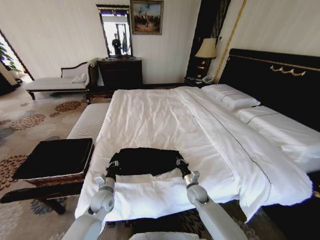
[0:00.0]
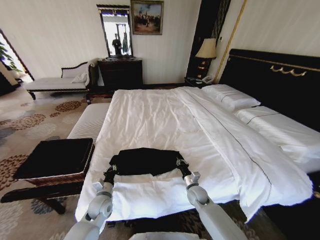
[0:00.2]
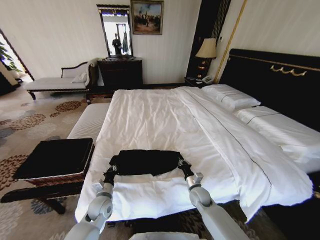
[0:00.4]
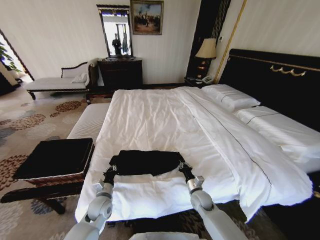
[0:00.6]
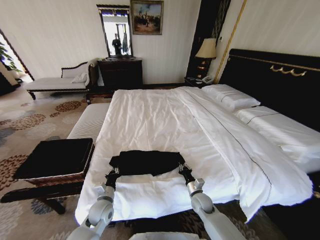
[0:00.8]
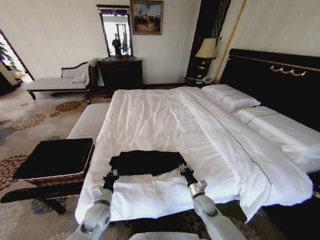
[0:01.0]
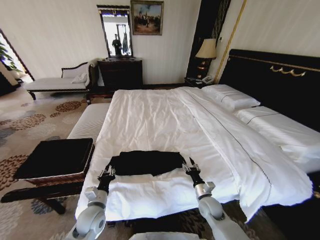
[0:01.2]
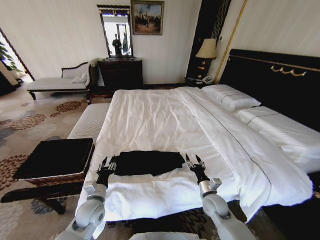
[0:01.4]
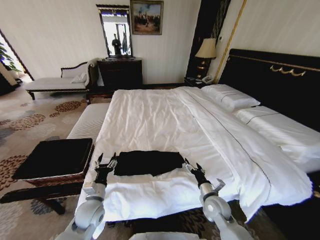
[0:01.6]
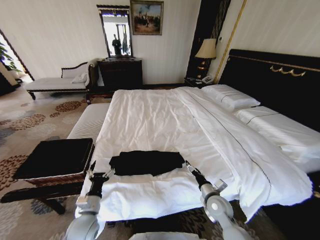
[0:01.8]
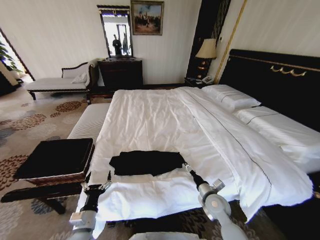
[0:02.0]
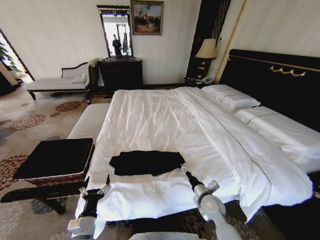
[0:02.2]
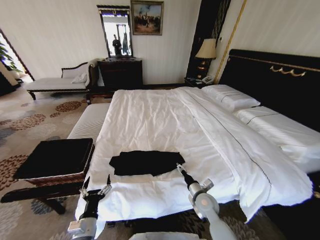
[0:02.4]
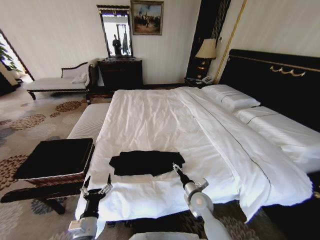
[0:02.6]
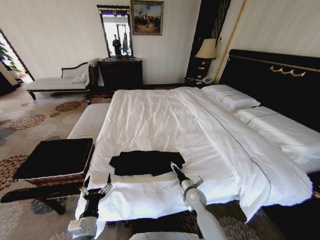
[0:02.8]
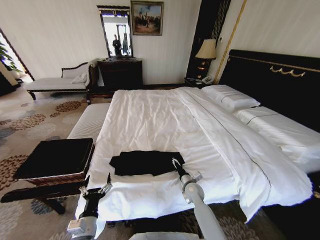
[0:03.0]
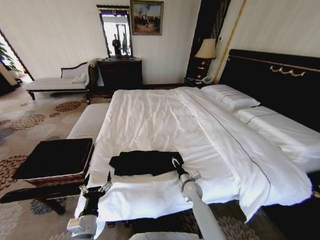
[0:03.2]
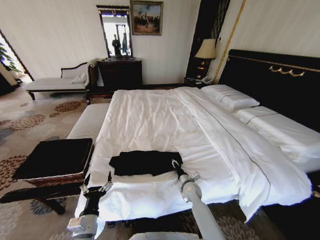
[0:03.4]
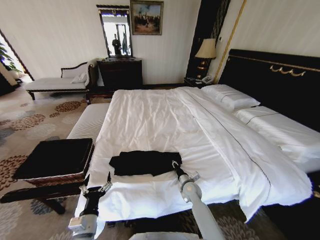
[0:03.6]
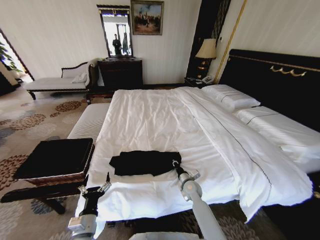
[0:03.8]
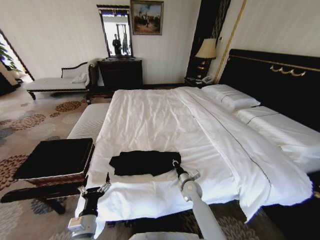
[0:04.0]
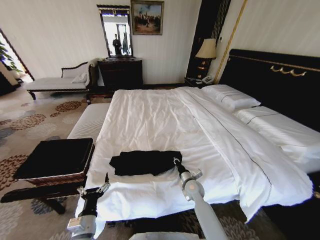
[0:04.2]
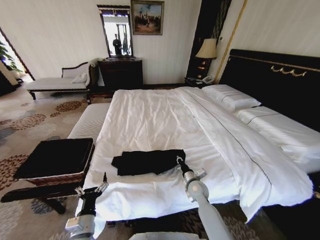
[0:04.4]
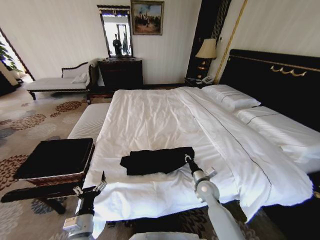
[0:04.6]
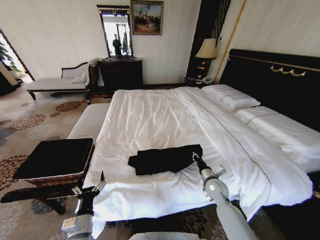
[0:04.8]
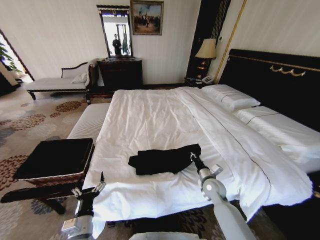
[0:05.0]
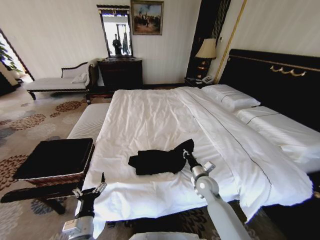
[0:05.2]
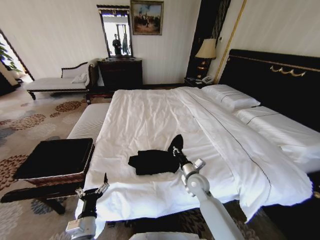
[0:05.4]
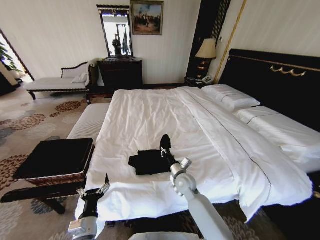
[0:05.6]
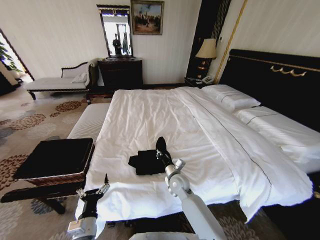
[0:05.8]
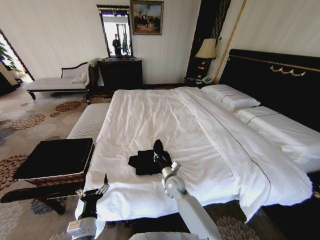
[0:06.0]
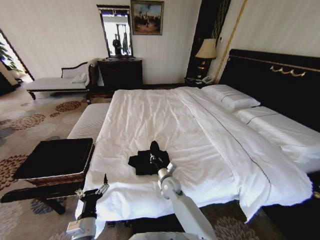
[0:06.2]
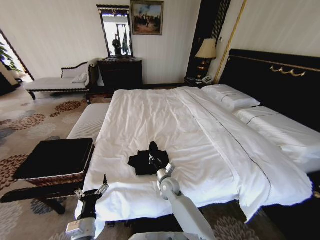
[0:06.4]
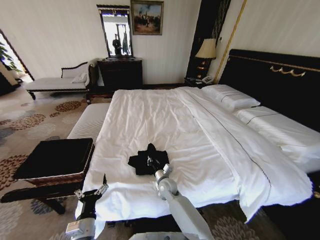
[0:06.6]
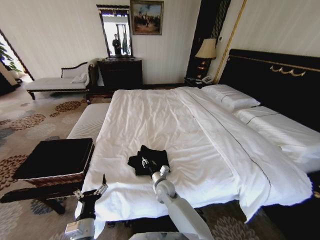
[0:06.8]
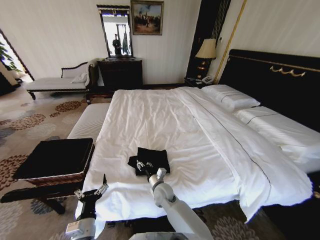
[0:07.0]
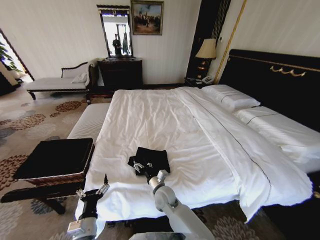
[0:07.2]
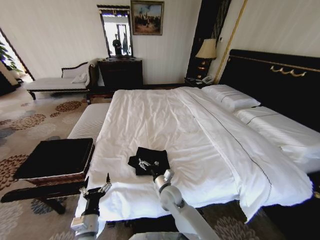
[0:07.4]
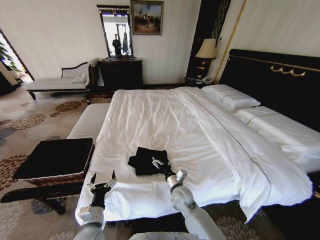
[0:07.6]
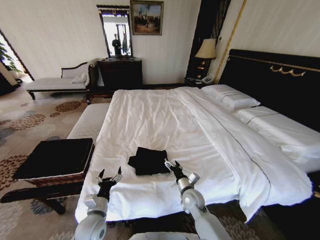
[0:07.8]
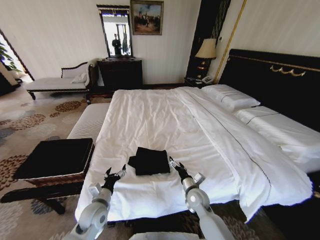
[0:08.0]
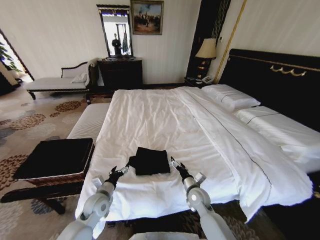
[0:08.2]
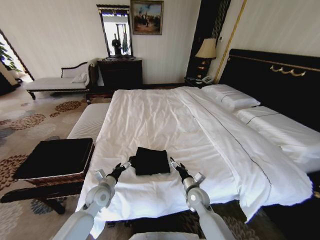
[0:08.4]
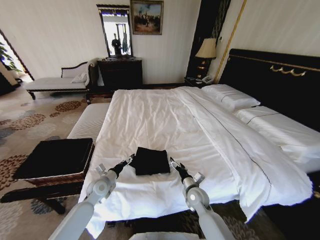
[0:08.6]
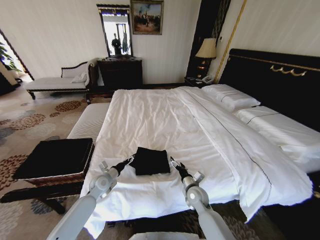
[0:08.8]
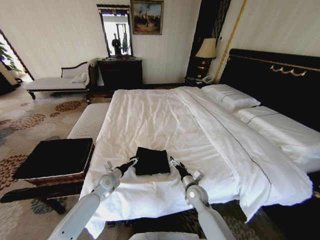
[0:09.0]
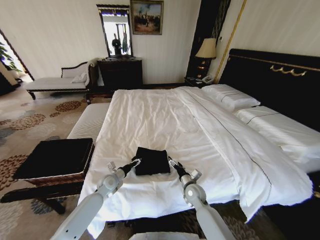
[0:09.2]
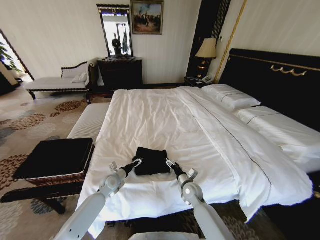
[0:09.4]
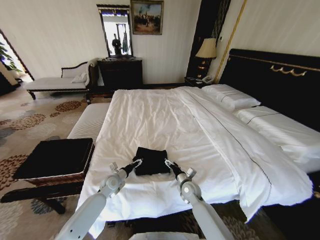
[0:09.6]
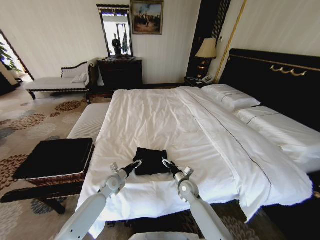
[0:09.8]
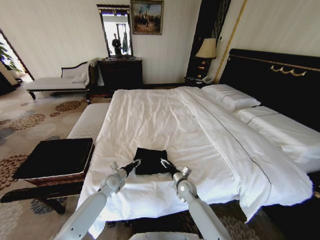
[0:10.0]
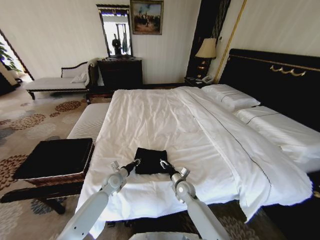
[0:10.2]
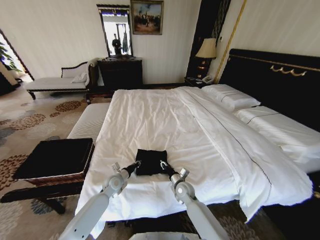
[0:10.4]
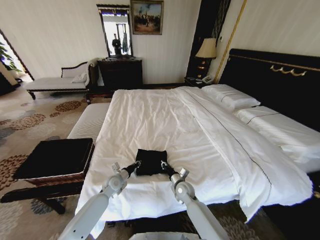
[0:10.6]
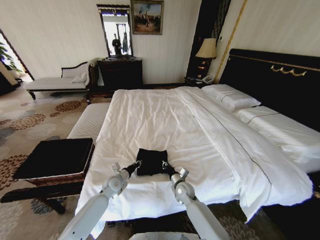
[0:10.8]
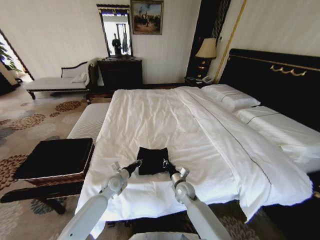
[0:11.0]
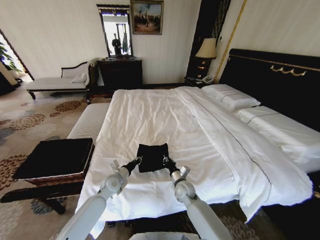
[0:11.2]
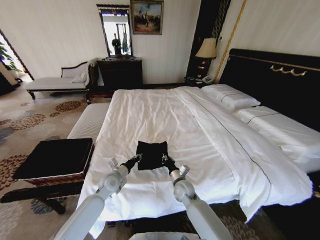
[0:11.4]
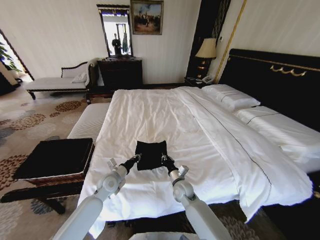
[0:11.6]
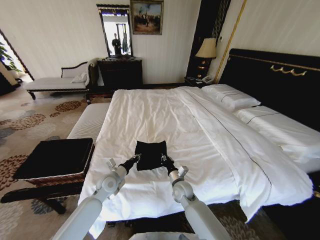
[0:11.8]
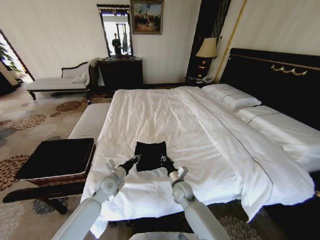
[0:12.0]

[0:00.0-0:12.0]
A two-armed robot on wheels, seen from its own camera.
Task of the whole recording: Fold the clothes on the bed and place them into the basket.
0:00.0 to 0:01.6: The right gripper travels backward and upward by approximately 10 cm, and opens its fingers. Meanwhile the left gripper travels backward by roughly 5 cm, and opens up.
0:01.6 to 0:03.0: The right gripper moves forward, to the left and downward, roughly 10 cm. Meanwhile the left gripper shifts roughly 10 cm backward.
0:03.0 to 0:04.4: The right gripper closes up.
0:04.4 to 0:06.0: The right gripper heads to the left, covering some 10 cm.
0:06.0 to 0:07.6: The right gripper heads backward, covering some 5 cm, moves approximately 5 cm to the left and comes back, and opens.
0:07.6 to 0:09.0: The left gripper travels forward by some 20 cm. The right gripper heads to the right, covering roughly 10 cm.
0:09.0 to 0:10.4: The right gripper shifts by roughly 5 cm, and closes its fingers. The left gripper closes its fingers.
0:10.4 to 0:12.0: The right gripper closes. The left gripper travels upward by approximately 10 cm.

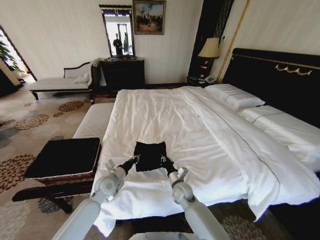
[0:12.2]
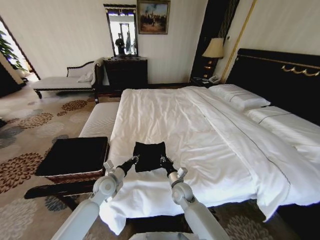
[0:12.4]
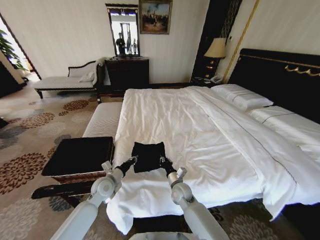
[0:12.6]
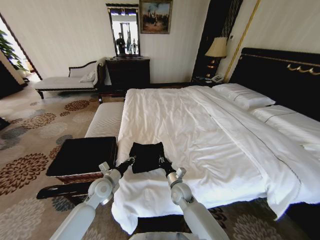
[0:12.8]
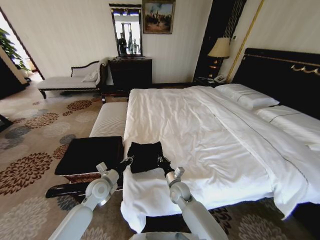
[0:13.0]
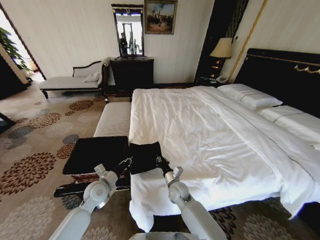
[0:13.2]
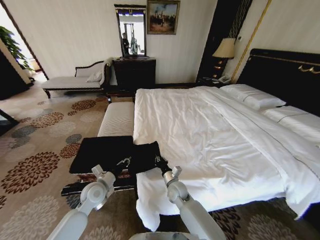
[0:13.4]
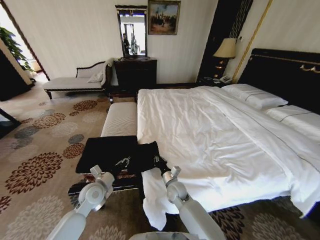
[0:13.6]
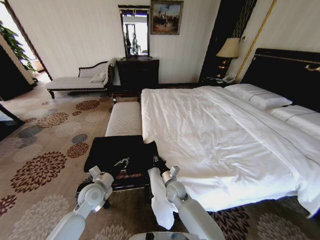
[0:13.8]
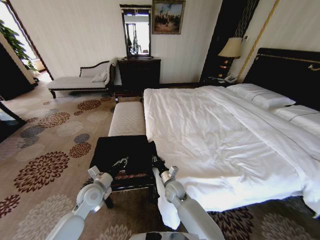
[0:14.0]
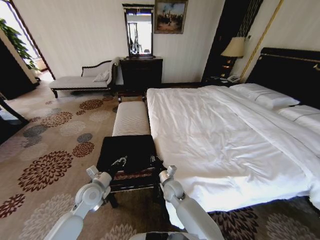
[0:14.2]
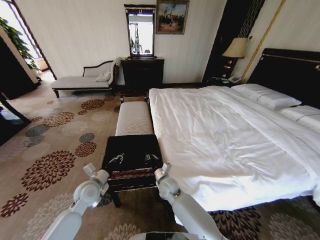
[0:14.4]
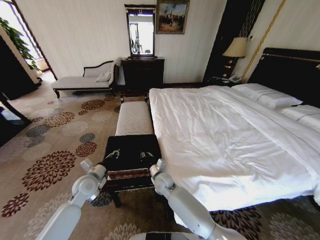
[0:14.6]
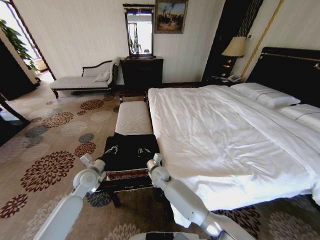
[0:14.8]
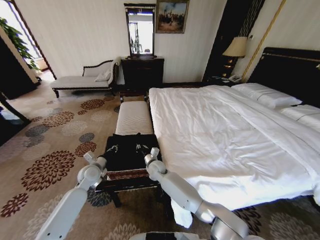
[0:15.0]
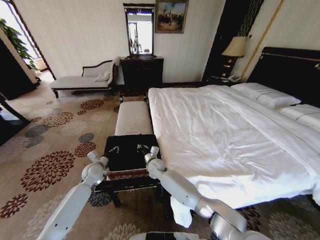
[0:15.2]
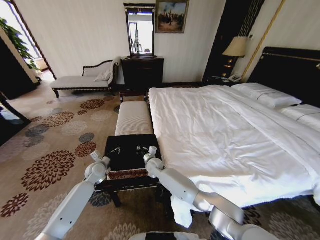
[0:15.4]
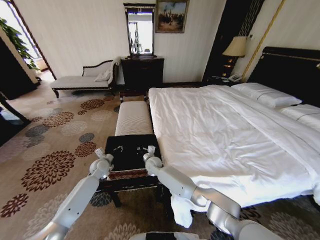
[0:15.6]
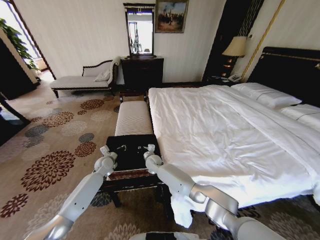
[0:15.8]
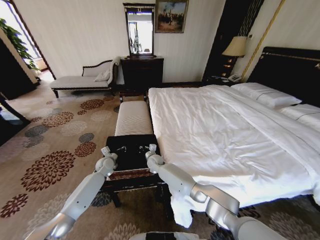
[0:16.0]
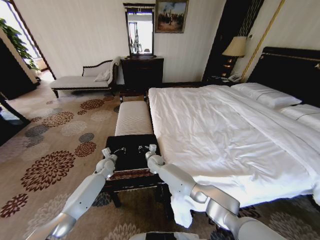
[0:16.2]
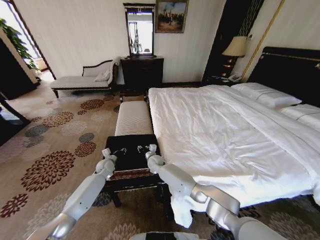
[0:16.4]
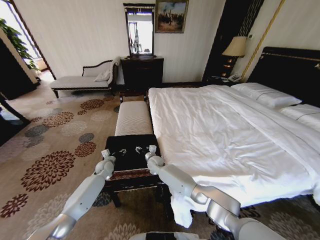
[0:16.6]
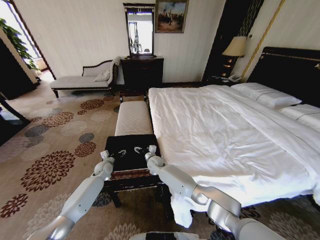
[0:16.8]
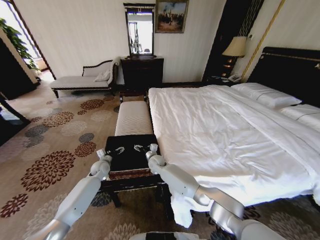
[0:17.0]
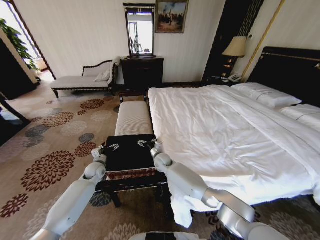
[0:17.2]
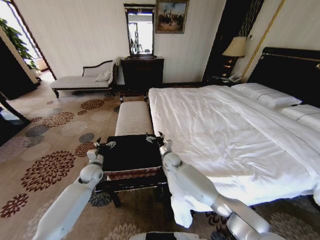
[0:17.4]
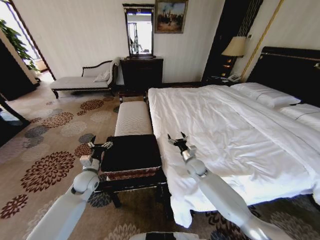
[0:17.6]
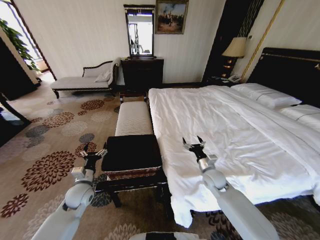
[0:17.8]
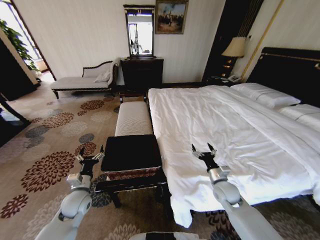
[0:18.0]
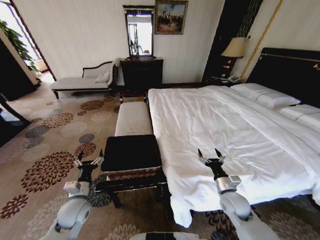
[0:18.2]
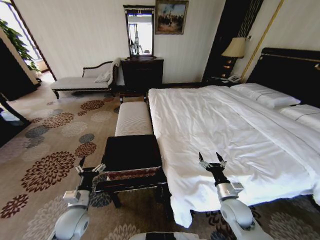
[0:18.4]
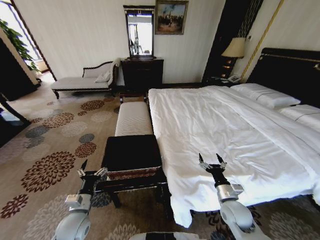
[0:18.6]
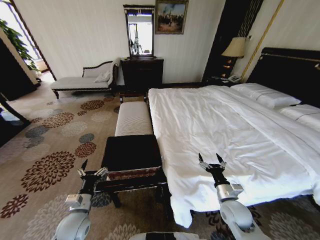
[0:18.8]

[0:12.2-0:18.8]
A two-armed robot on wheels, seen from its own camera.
Task of the whole recording: Fold the clothes on the bed and place them into the basket.
0:12.2 to 0:13.8: The left gripper moves roughly 5 cm.
0:13.8 to 0:15.4: The right gripper heads forward and to the left, covering some 15 cm. The left gripper shifts roughly 10 cm forward.
0:15.4 to 0:17.2: The right gripper changes place by roughly 5 cm, and opens up; the left gripper opens its fingers.
0:17.2 to 0:18.8: The right gripper shifts approximately 35 cm to the right and backward; the left gripper moves backward, roughly 25 cm.
